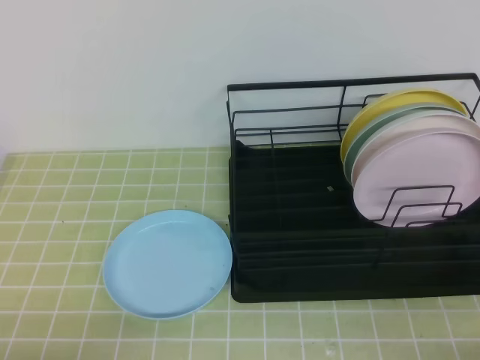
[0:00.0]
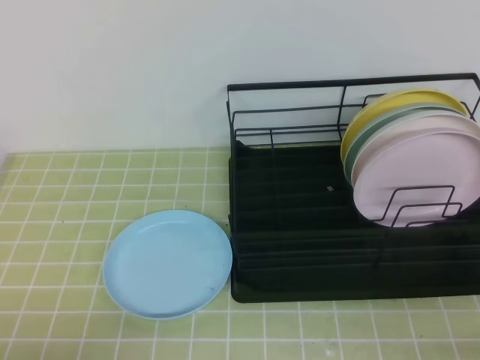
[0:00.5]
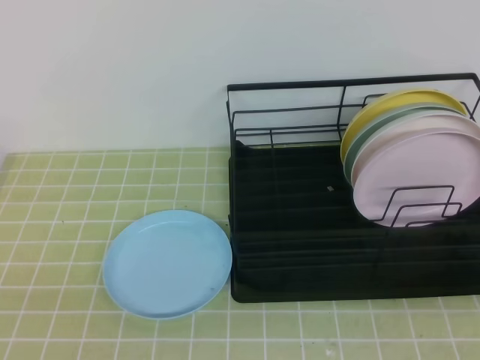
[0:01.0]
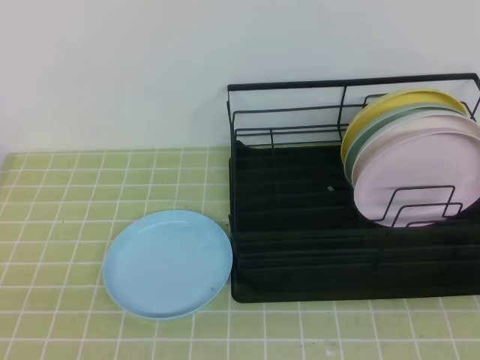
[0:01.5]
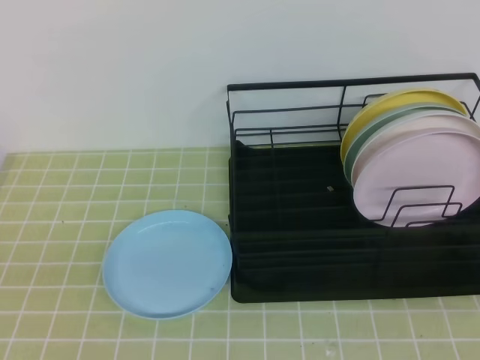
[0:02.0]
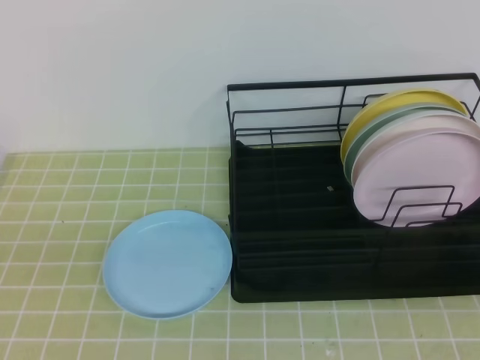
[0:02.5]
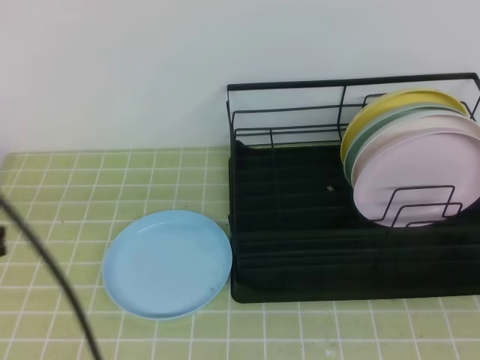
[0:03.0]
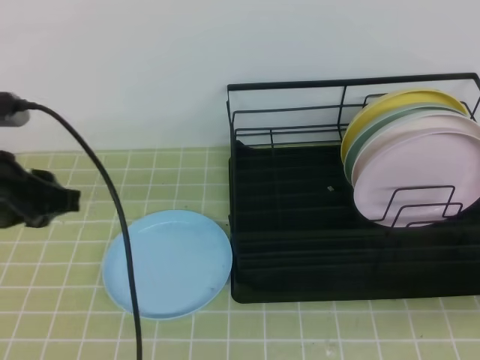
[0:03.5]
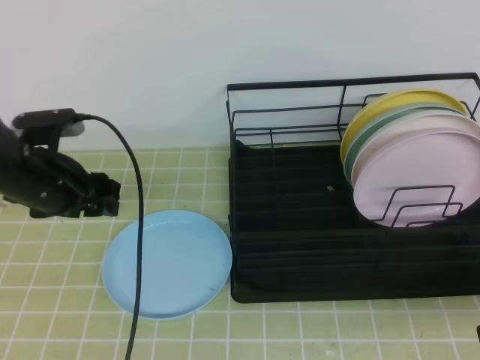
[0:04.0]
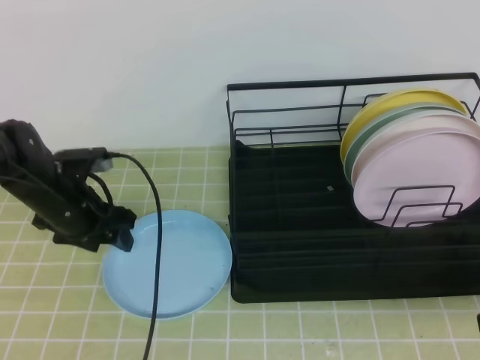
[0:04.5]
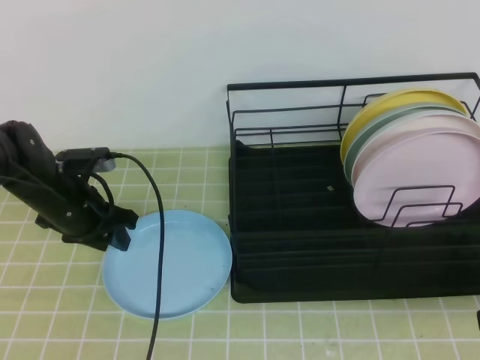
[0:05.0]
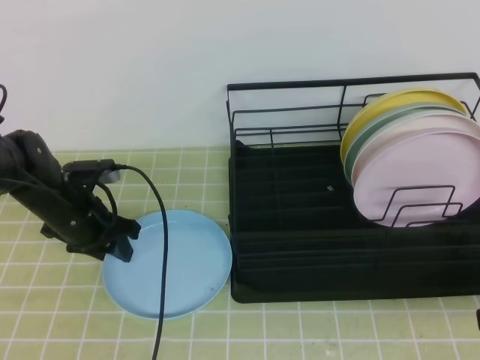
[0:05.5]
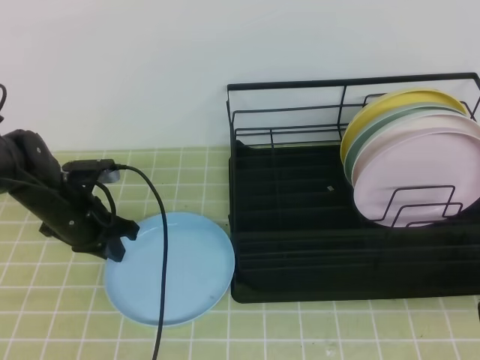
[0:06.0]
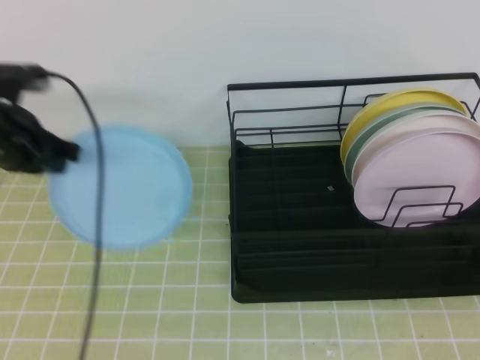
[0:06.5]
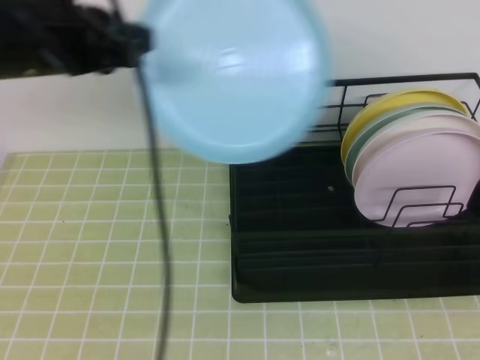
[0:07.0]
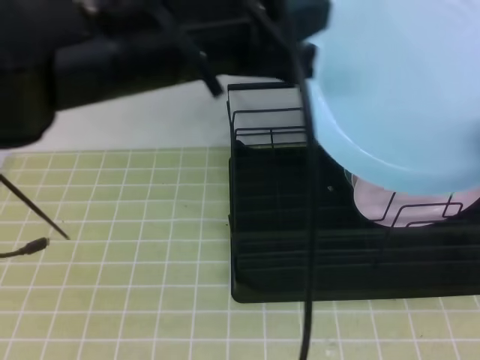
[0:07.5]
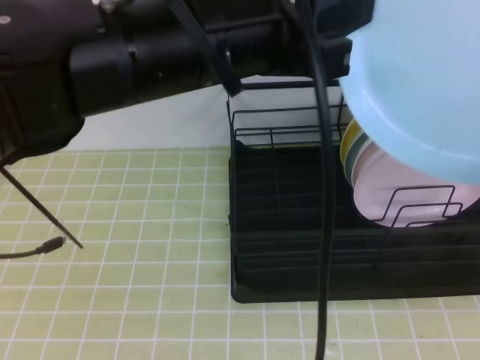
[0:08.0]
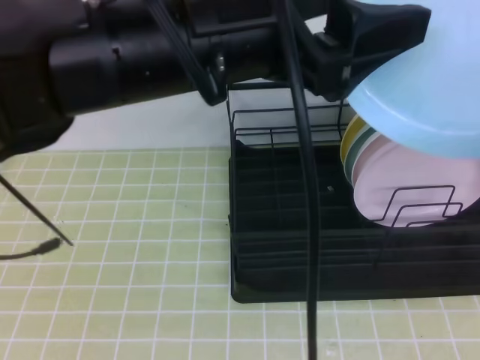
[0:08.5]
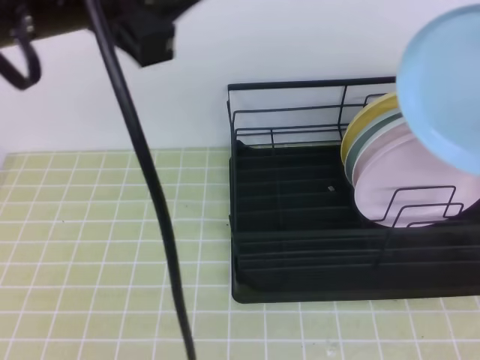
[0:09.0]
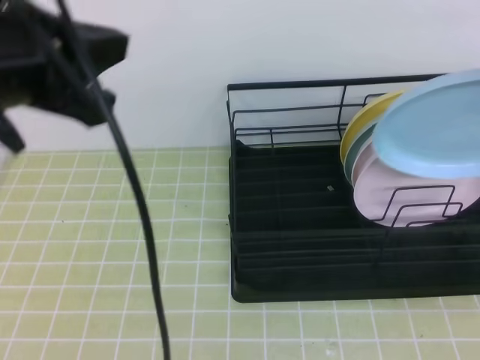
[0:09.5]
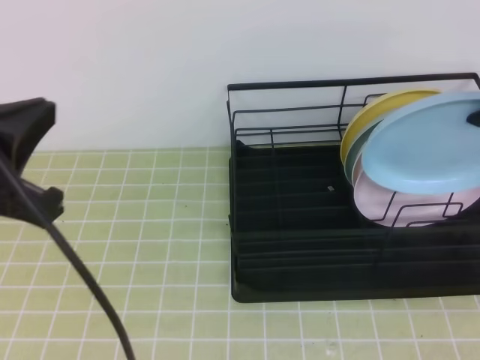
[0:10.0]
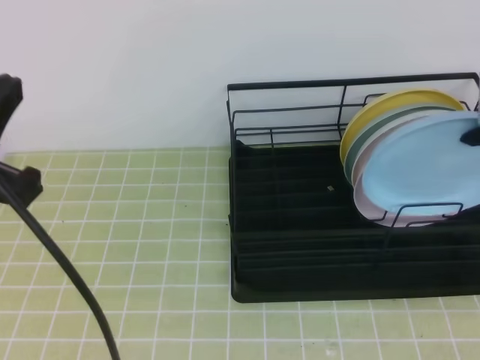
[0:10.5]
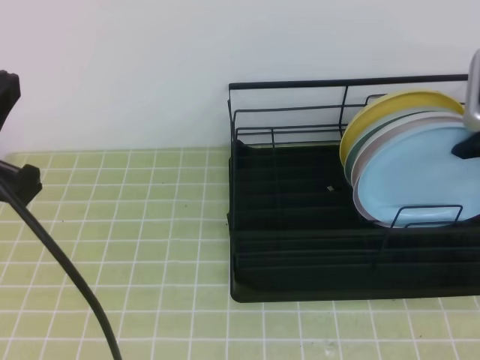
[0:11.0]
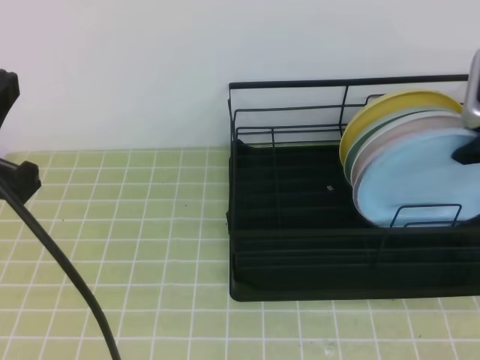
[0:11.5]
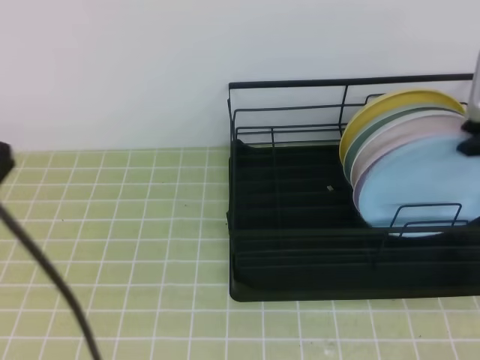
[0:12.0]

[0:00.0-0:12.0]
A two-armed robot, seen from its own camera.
0:02.0 to 0:04.0: The left gripper shifts about 35 cm forward, and opens its fingers.
0:04.0 to 0:06.0: The left gripper moves downward, approximately 5 cm, and closes its fingers.
0:06.0 to 0:08.0: The right gripper is displaced upward by some 10 cm, and opens and closes again. The left gripper moves upward, to the right and backward, approximately 35 cm.
0:08.0 to 0:10.0: The left gripper is displaced to the left and backward by roughly 20 cm, and opens, then closes once more. The right gripper is displaced forward by approximately 20 cm.
0:10.0 to 0:12.0: The right gripper opens up.

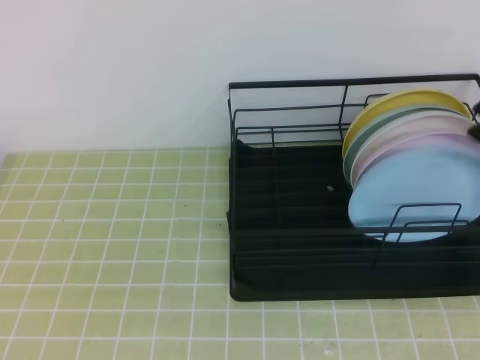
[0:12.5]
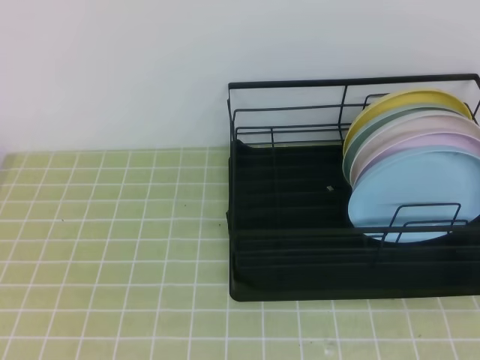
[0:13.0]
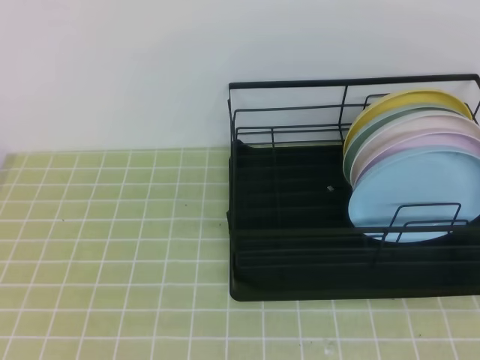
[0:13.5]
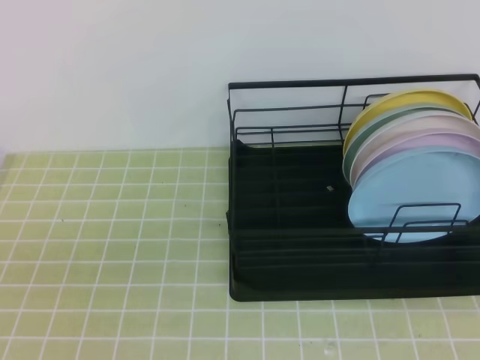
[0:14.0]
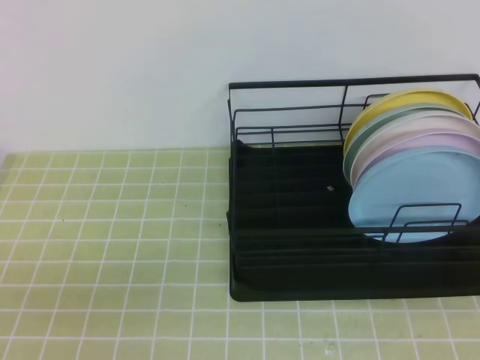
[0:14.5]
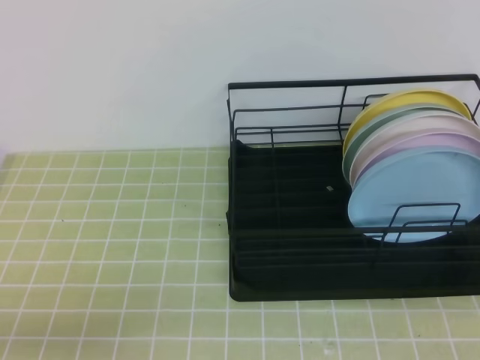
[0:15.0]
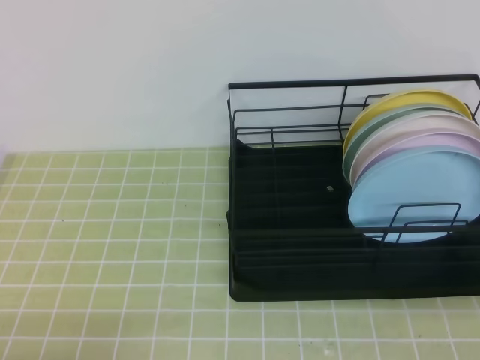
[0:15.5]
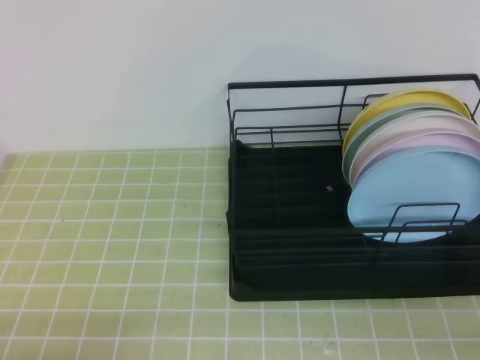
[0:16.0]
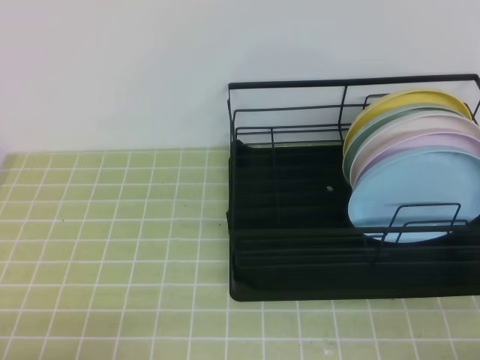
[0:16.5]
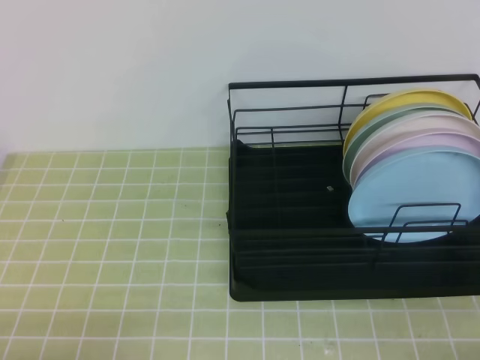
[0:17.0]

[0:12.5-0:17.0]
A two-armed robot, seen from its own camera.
0:12.5 to 0:14.5: The right gripper goes some 25 cm backward, and closes its fingers.
